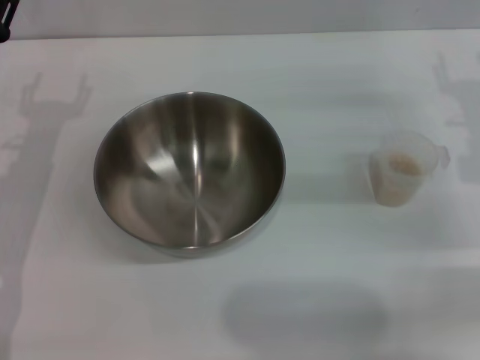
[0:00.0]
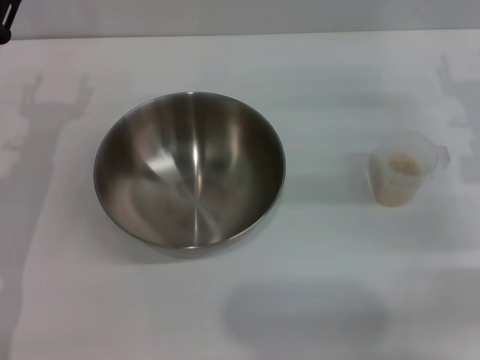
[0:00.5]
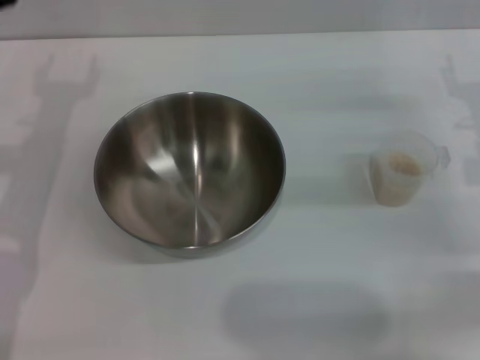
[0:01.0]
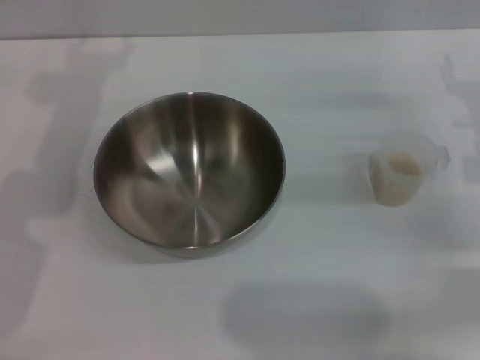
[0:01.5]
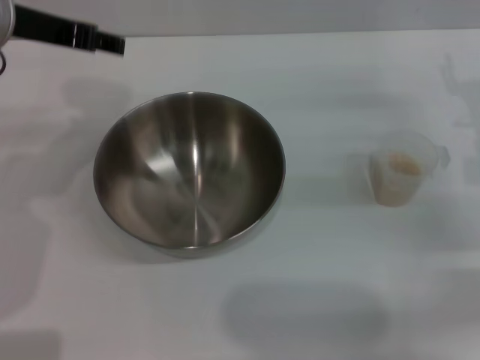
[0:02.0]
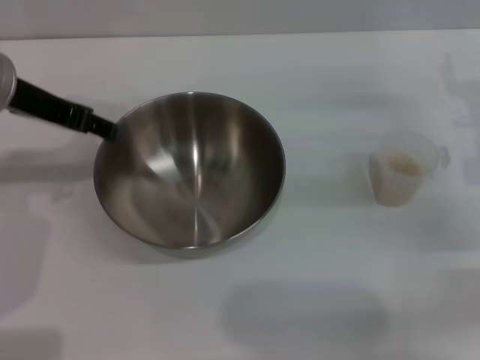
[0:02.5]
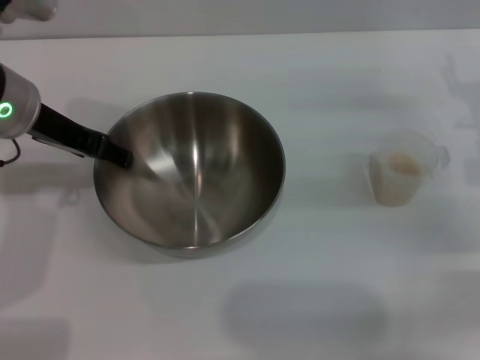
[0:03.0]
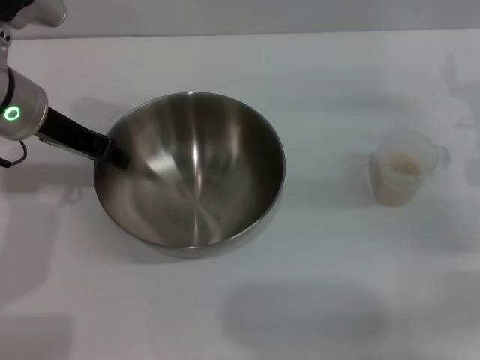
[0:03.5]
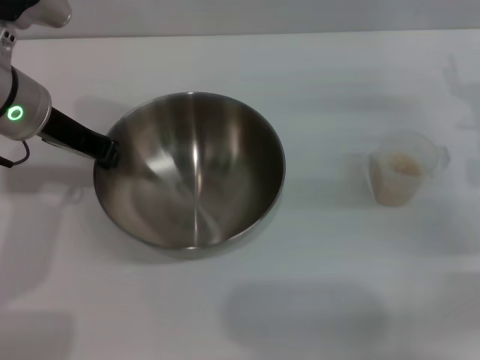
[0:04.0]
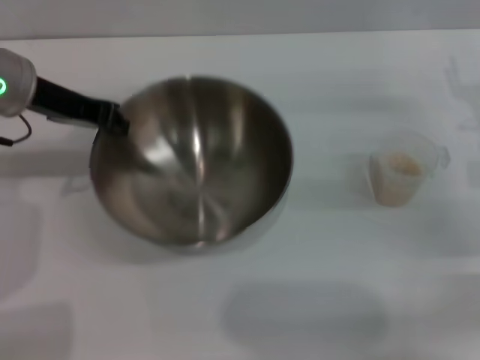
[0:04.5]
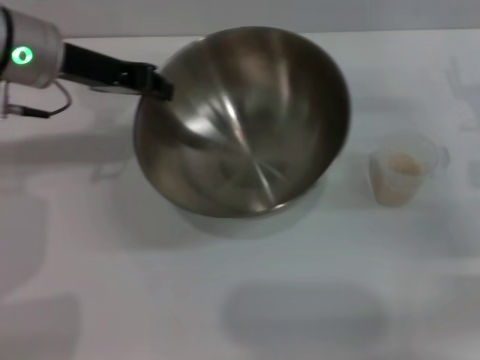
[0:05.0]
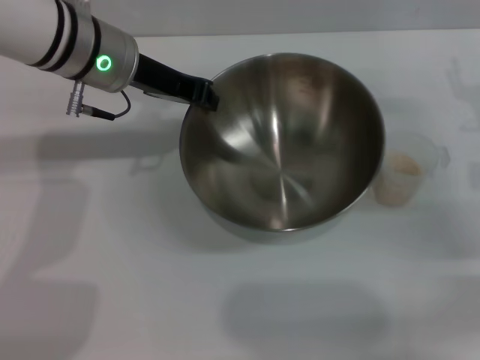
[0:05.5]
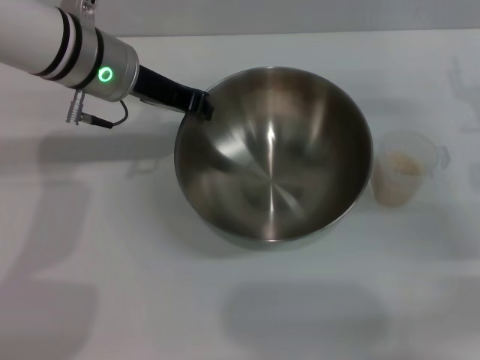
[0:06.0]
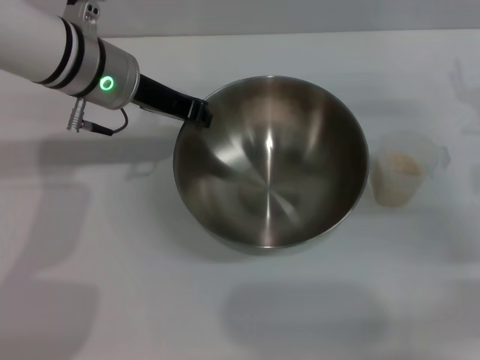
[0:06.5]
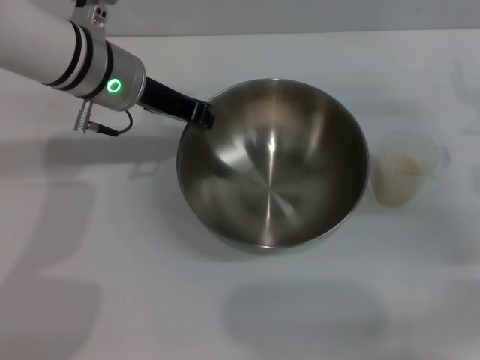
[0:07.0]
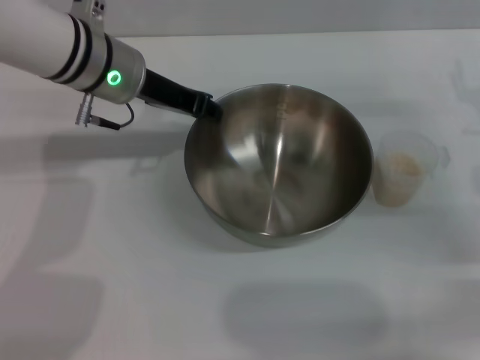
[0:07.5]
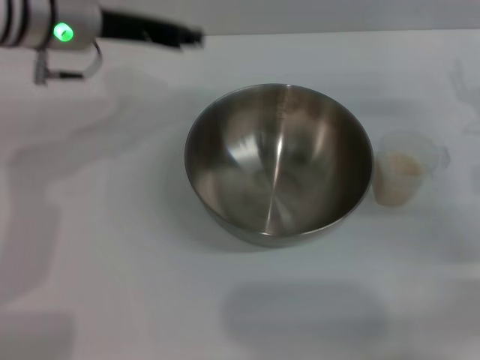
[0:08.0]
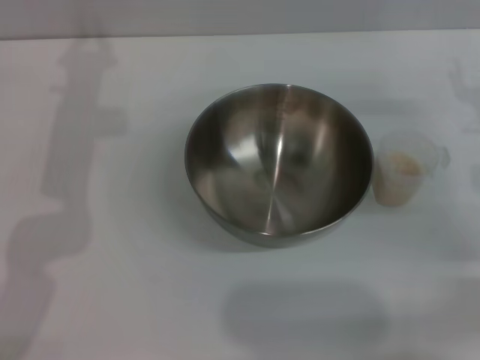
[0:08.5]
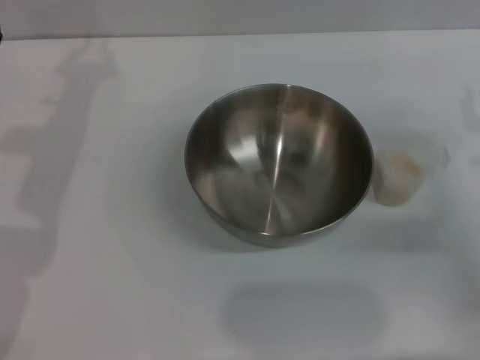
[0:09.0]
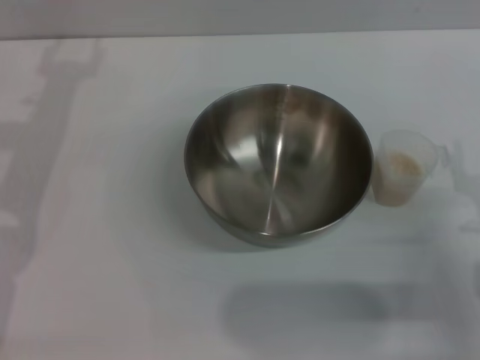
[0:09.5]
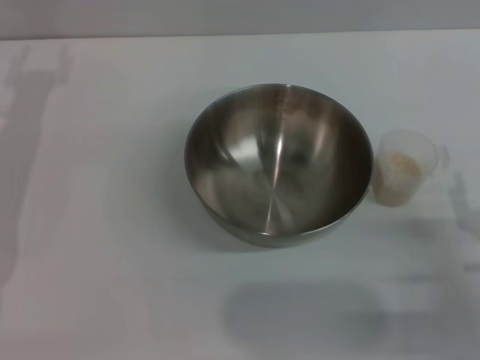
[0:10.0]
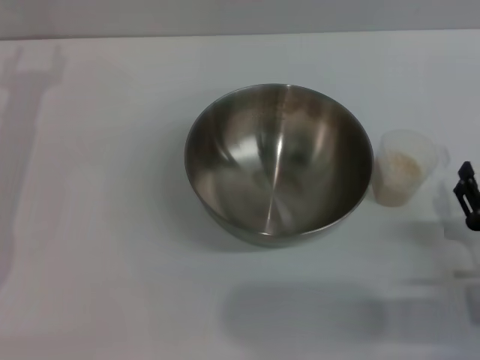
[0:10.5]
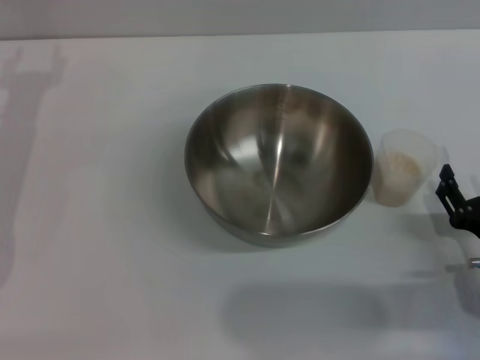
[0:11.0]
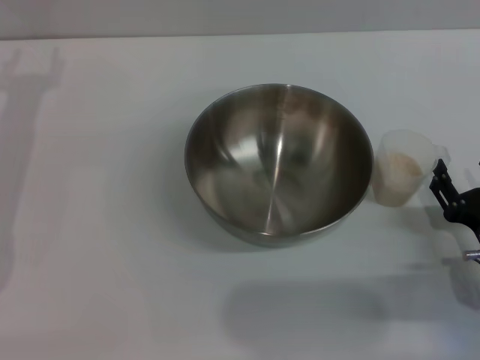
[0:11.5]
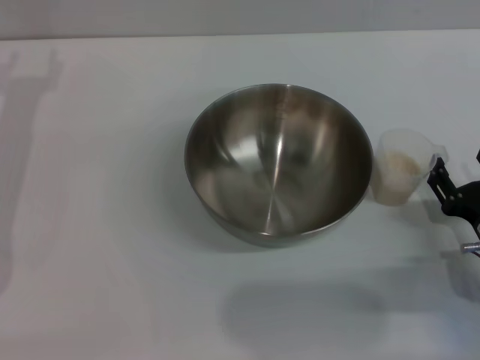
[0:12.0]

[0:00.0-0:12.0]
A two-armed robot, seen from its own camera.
Task of the whole recording: Place the bowl in the middle of the table with one hand and pour the rice from the grain cup into it with the other hand.
Step, 0:00.0 to 0:05.0: Pick up the bowl with the left gripper.
Step, 0:05.5 to 0:08.0: Place the bowl in the center of view with the left gripper.
0:00.0 to 0:02.0: The left gripper is displaced upward by some 15 cm.
0:02.0 to 0:04.0: The left gripper moves downward, roughly 5 cm, and closes.
0:04.0 to 0:06.0: The left gripper is displaced to the right by about 5 cm.
0:08.0 to 0:10.0: The left gripper is displaced to the left and downward by roughly 15 cm, and opens up, while the right gripper heads backward and downward, covering about 20 cm.
0:10.0 to 0:12.0: There are only small adjustments of the grippers.

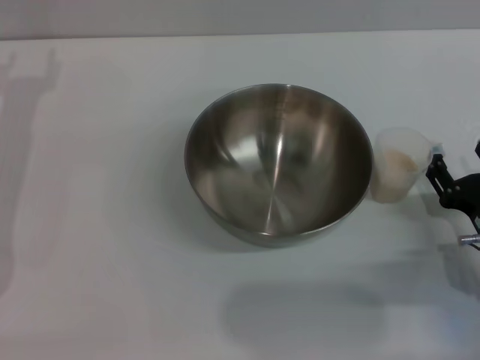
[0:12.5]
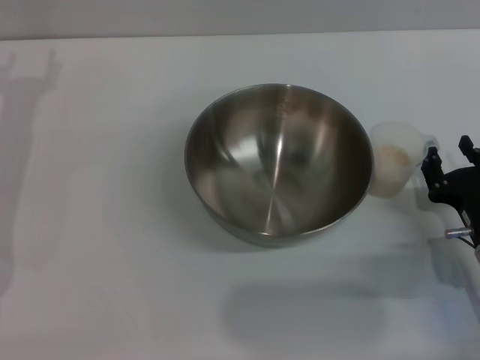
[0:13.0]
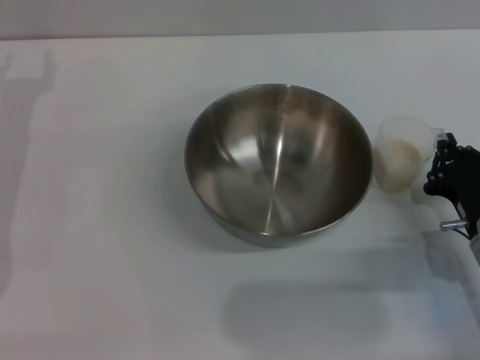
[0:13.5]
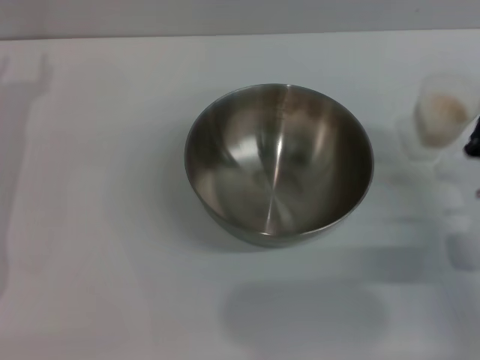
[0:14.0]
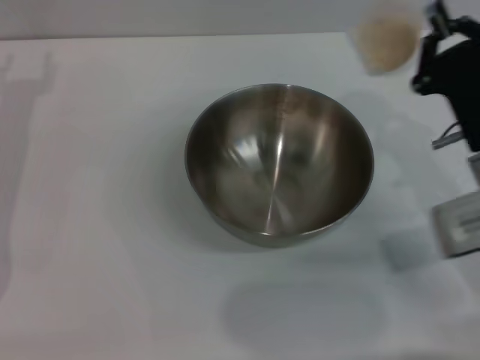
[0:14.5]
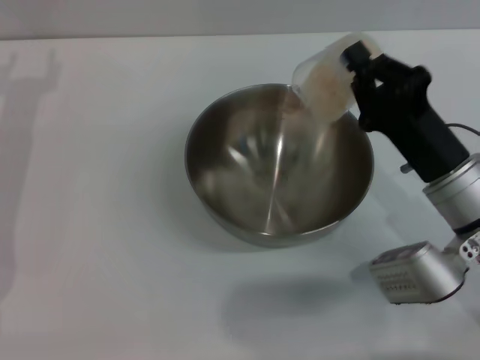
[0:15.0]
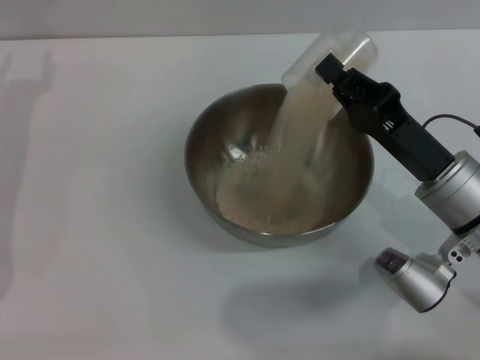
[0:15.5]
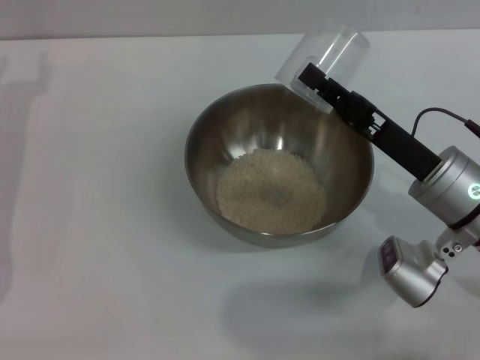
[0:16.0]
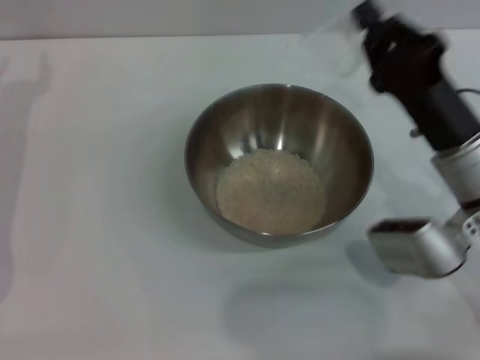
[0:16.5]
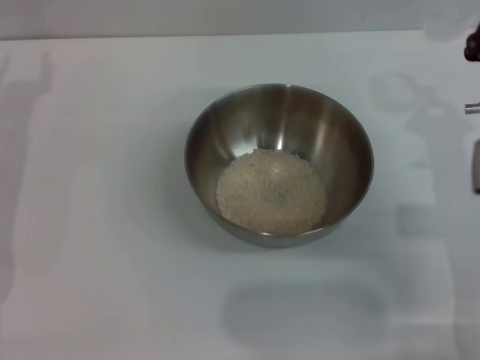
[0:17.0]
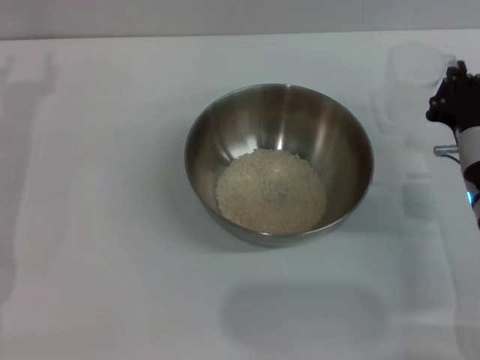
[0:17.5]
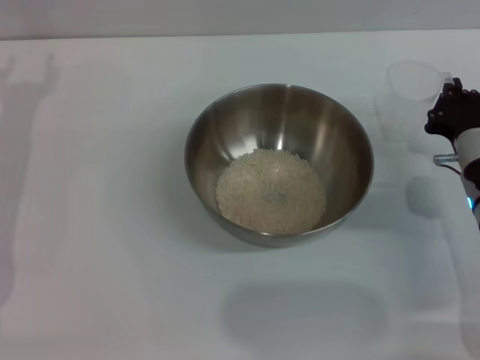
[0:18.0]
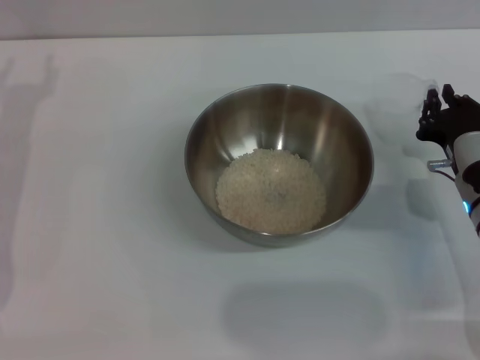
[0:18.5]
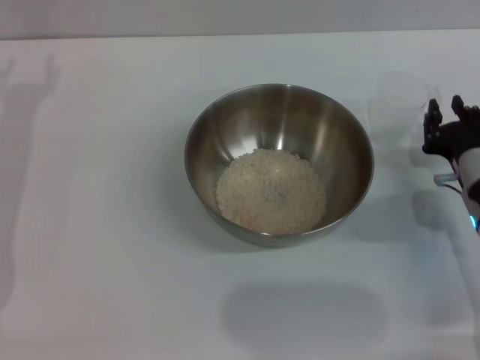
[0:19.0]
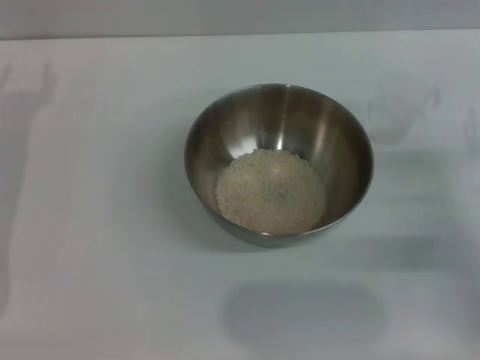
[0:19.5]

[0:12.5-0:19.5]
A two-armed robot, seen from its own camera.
Task of the whole recording: Place the bowl in the middle of the table with one hand and pour the rice from the grain cup into it with the other hand.
Step, 0:14.5 to 0:15.5: Pour the rice from the cup into the bowl with the right gripper.
Step, 0:16.0 to 0:18.5: Place the cup on the table with the right gripper.
0:12.5 to 0:14.5: The right gripper shifts roughly 10 cm upward and forward, and closes up.
0:16.0 to 0:17.5: The right gripper changes place by roughly 5 cm.
0:17.5 to 0:19.5: The right gripper moves to the right, approximately 5 cm, and opens.
